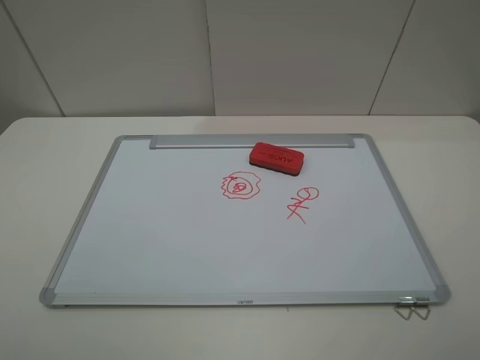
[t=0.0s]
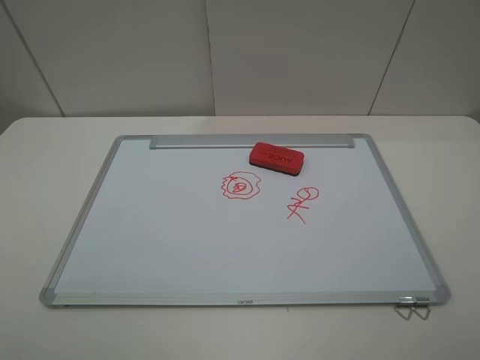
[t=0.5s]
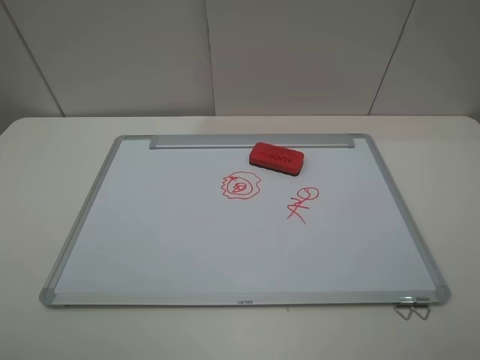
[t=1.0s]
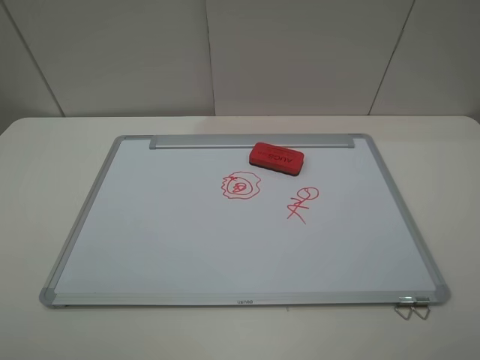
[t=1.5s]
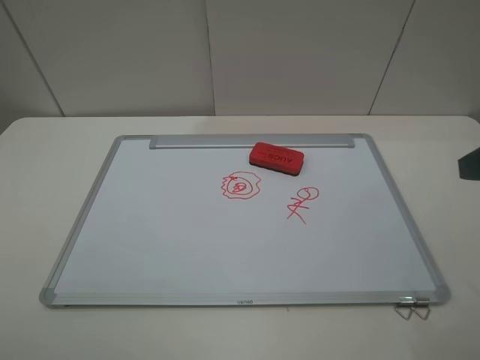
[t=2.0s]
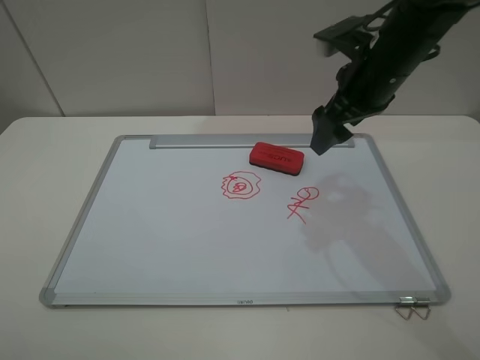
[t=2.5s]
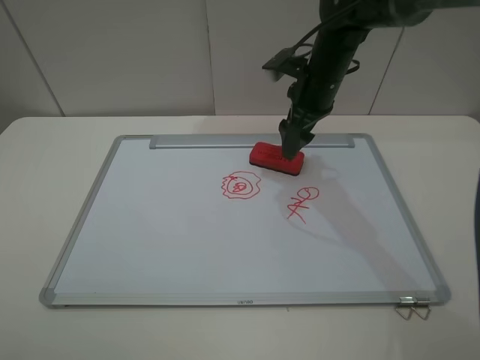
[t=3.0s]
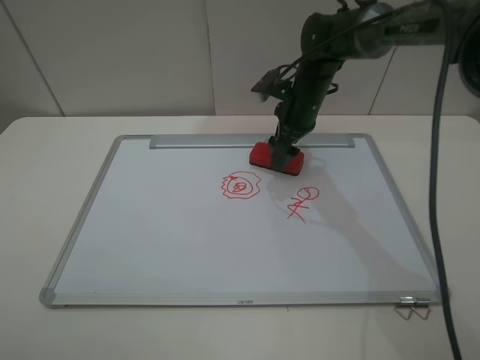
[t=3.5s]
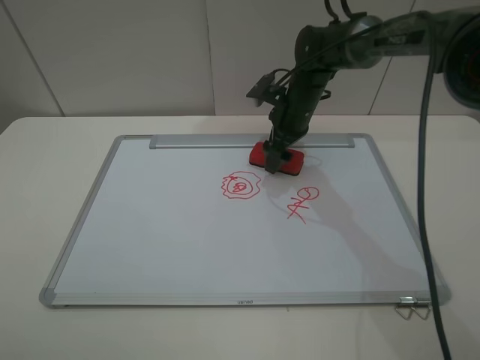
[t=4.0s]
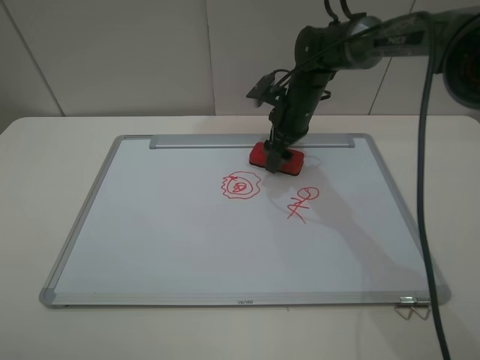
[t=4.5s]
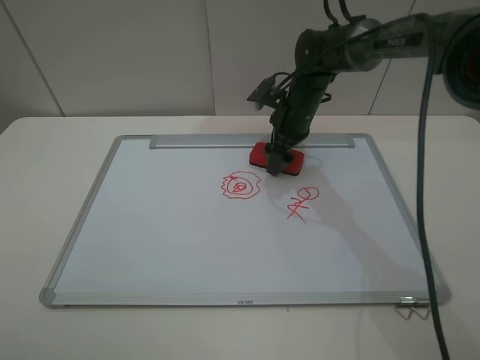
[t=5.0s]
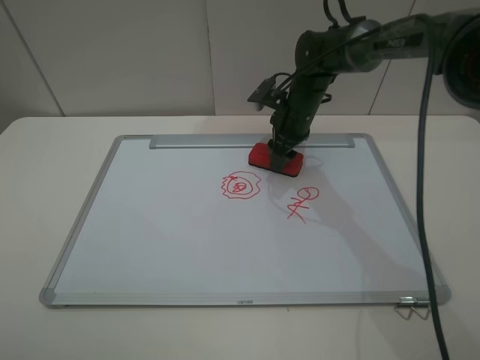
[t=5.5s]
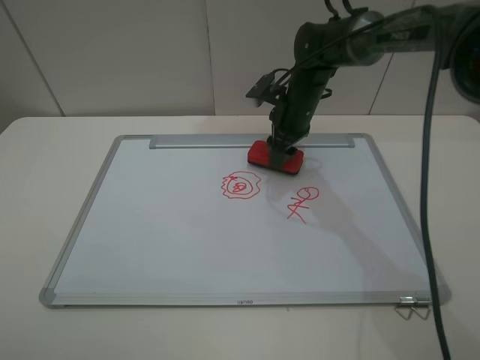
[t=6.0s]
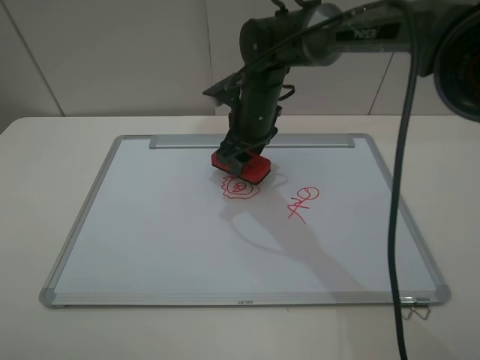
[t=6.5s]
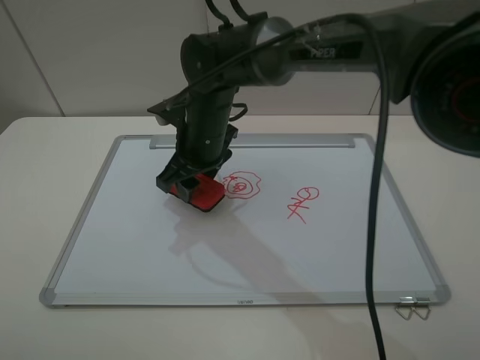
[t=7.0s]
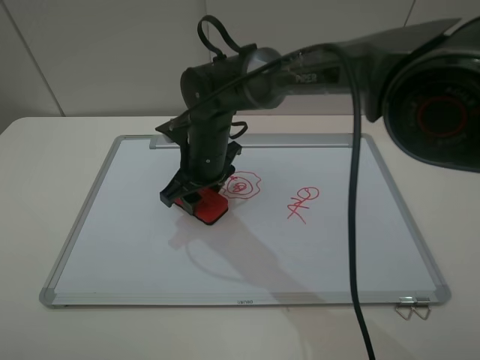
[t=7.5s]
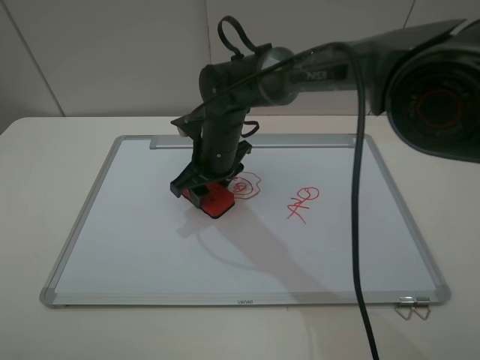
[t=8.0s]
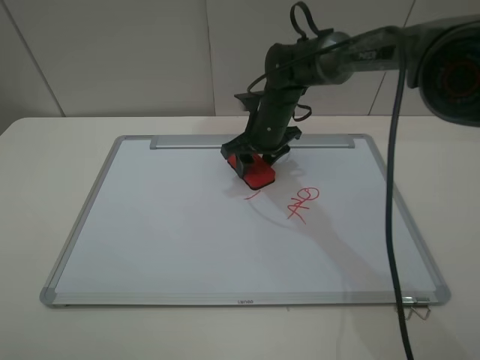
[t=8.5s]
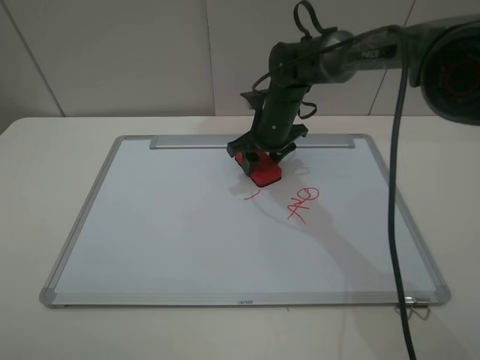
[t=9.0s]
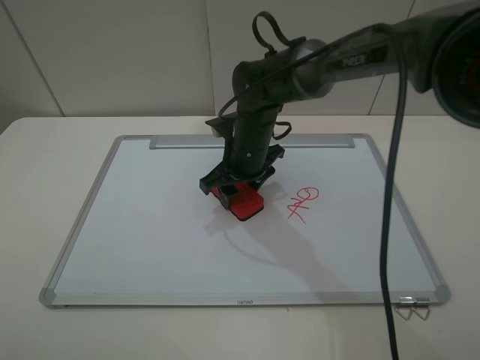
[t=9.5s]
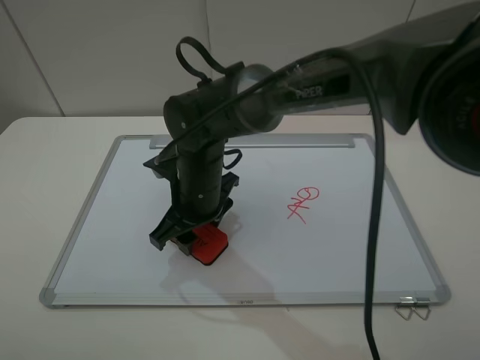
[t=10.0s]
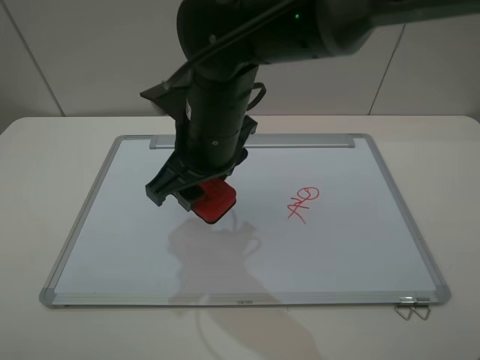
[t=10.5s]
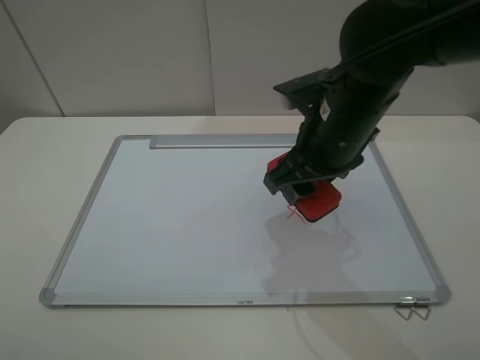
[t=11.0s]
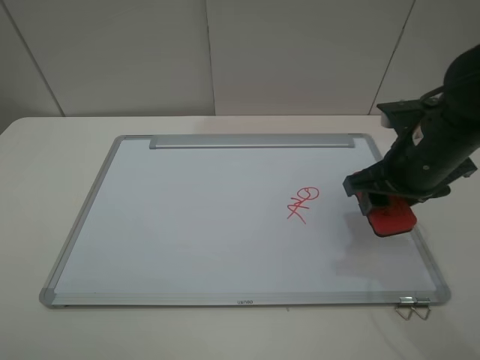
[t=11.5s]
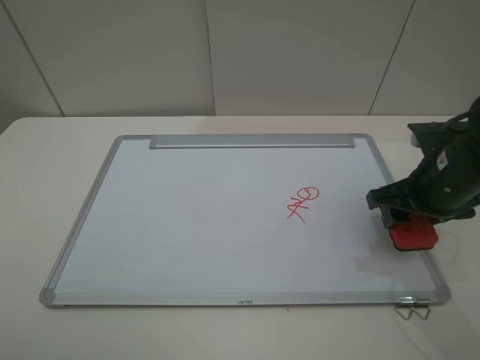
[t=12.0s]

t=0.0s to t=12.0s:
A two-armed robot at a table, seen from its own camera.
Step, t=0.0s to t=5.0s: Grasp the eraser with the right gripper.
Step, t=5.5s to t=10.0s: Grasp the eraser and wipe the blackboard with the right gripper.
t=2.0s to t=4.0s: The right gripper moves forward, to the left and downward, roughly 40 cm.
t=4.0s to t=6.0s: The right gripper closes up.
t=6.0s to t=8.0s: The right gripper shifts roughly 15 cm to the left and backward.
t=8.0s to t=10.0s: The right gripper shifts roughly 5 cm backward.
t=10.0s to t=12.0s: The right gripper heads to the right, covering about 30 cm.

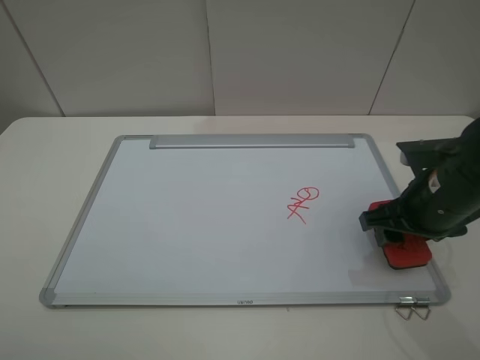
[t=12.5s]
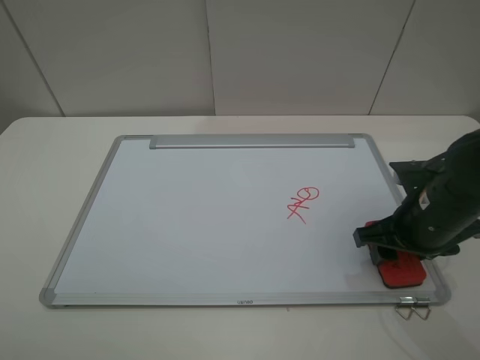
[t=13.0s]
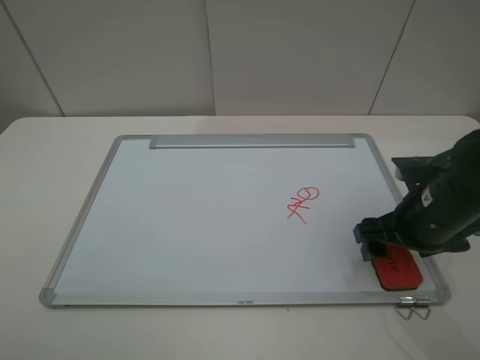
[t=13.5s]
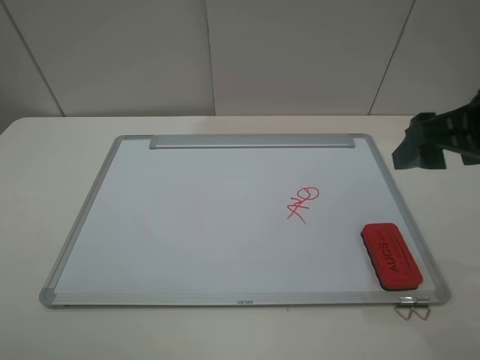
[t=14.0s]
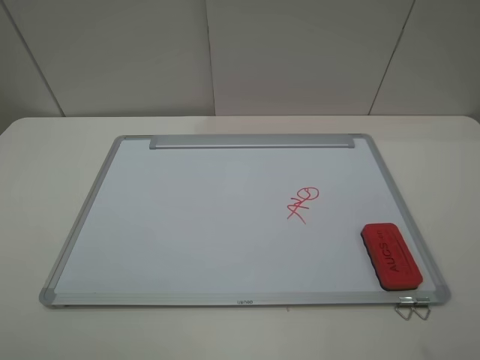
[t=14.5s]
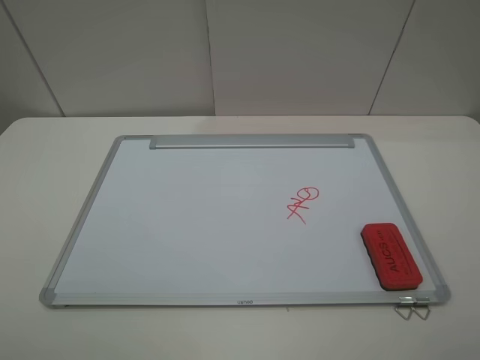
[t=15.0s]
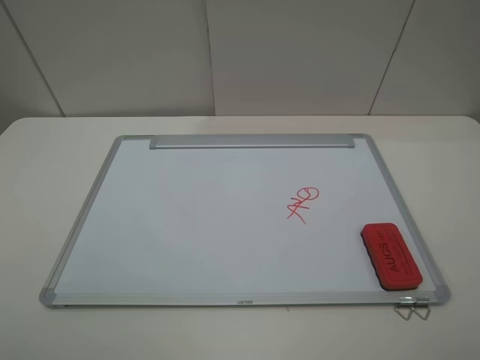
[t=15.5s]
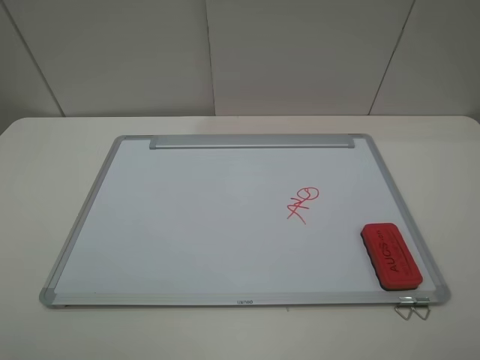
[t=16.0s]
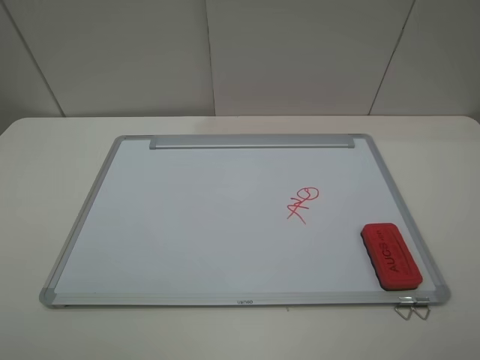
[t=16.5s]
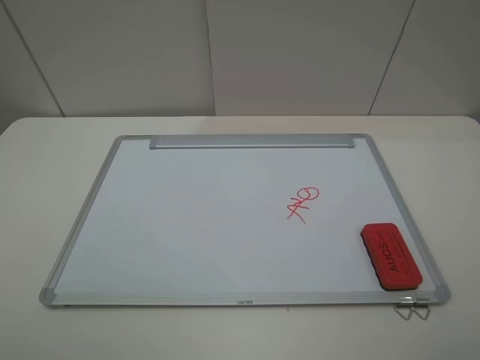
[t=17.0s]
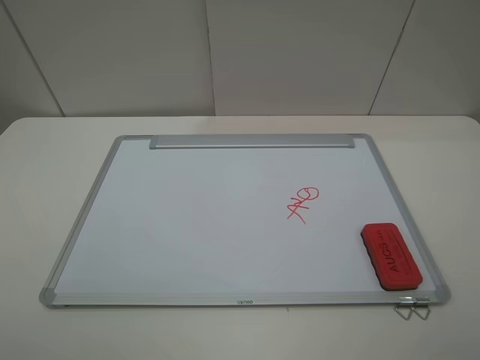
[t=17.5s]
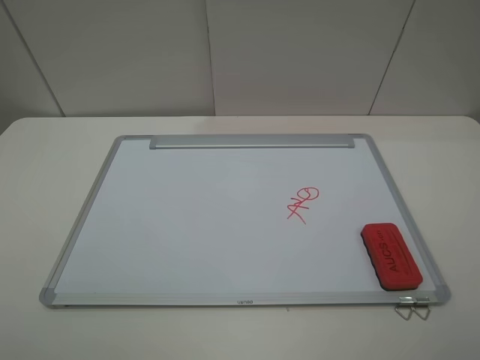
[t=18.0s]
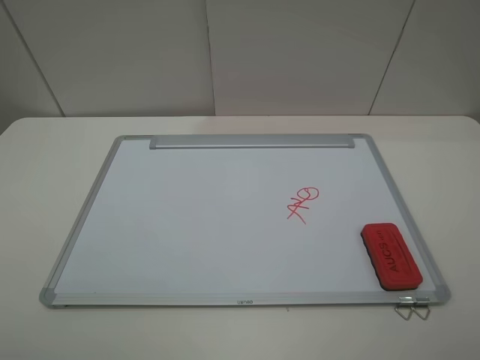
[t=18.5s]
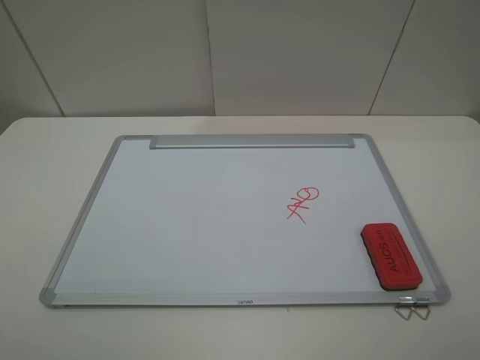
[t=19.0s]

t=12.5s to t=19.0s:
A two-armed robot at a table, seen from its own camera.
t=12.5s to t=14.5s: The right gripper goes about 25 cm upward and backward, and opens up.

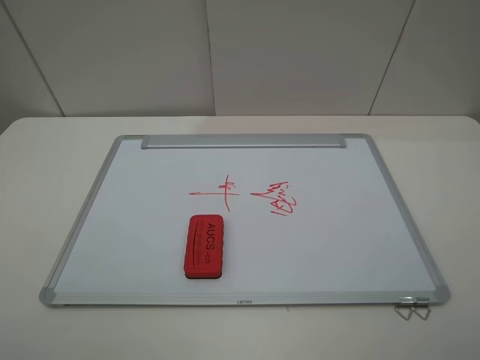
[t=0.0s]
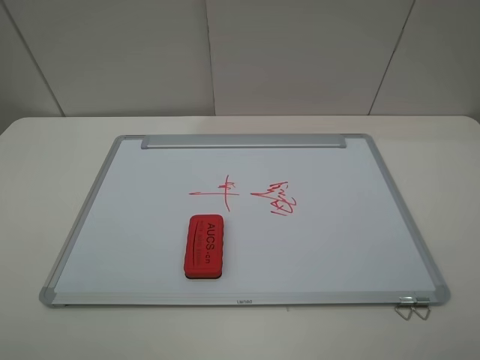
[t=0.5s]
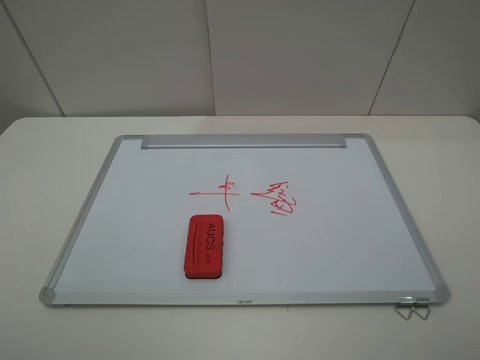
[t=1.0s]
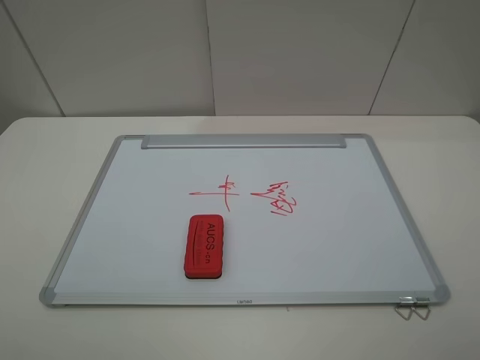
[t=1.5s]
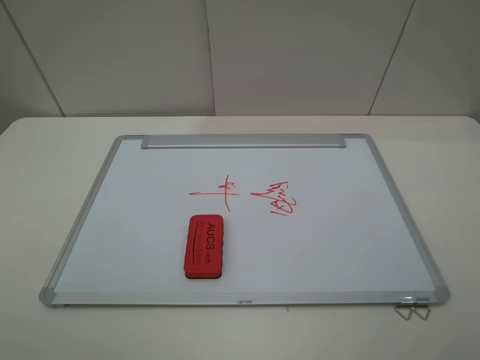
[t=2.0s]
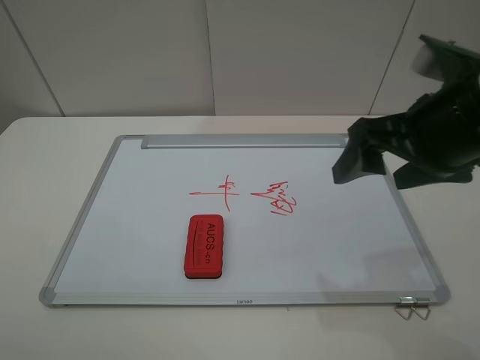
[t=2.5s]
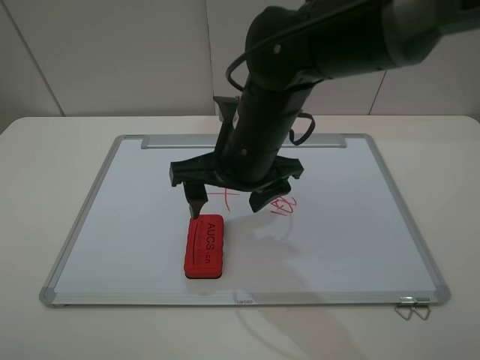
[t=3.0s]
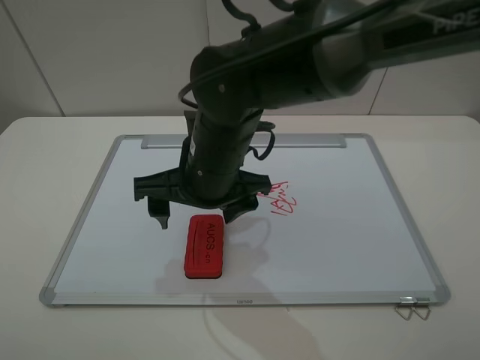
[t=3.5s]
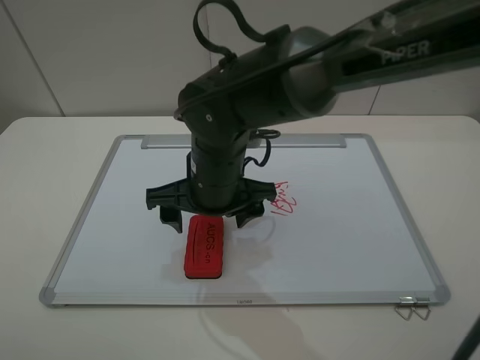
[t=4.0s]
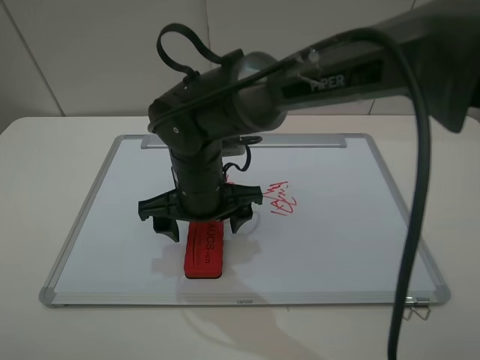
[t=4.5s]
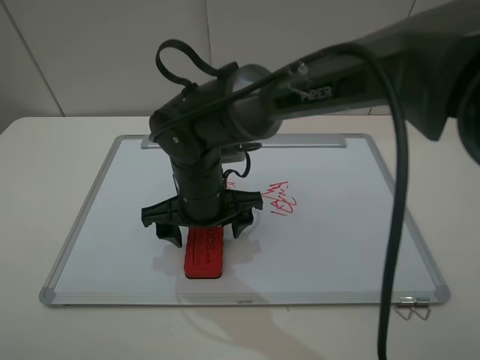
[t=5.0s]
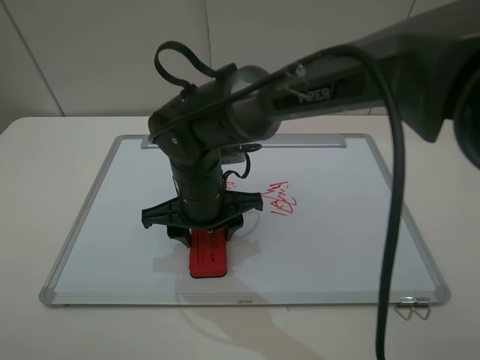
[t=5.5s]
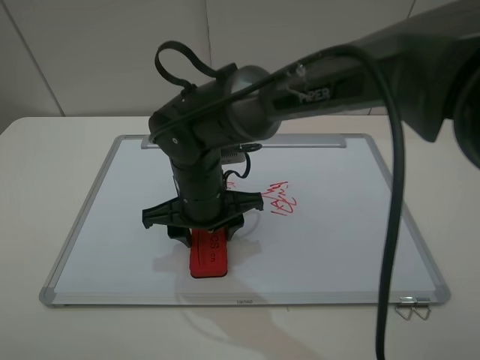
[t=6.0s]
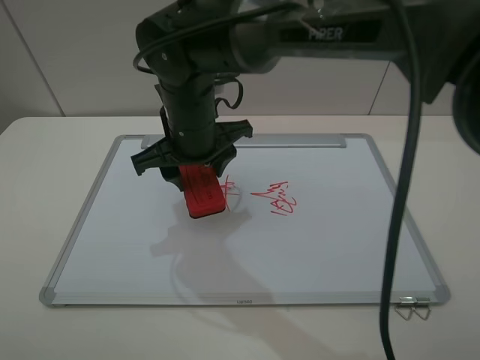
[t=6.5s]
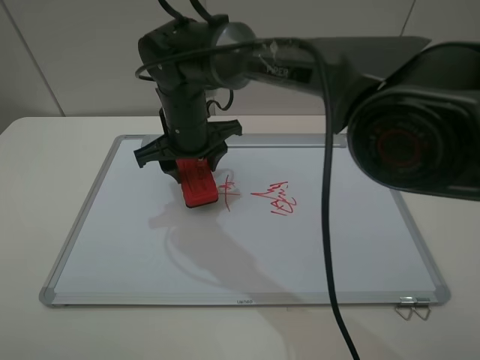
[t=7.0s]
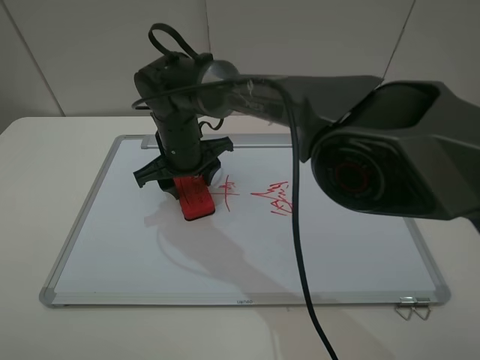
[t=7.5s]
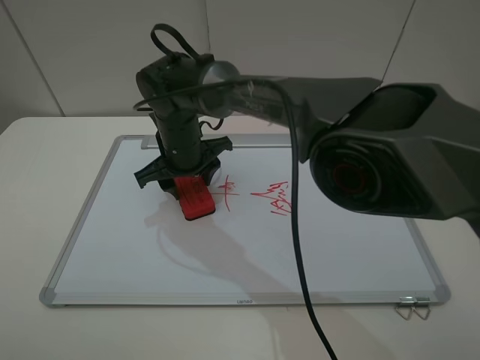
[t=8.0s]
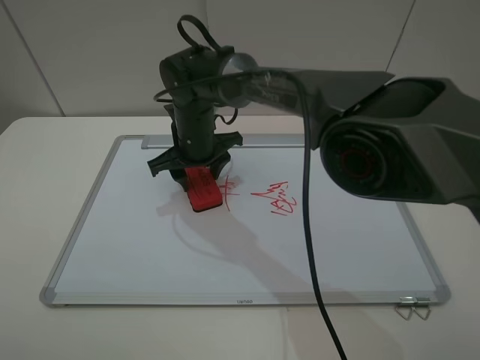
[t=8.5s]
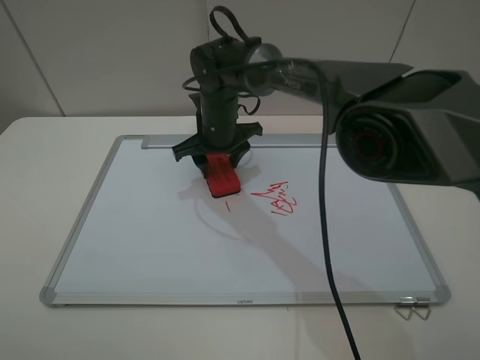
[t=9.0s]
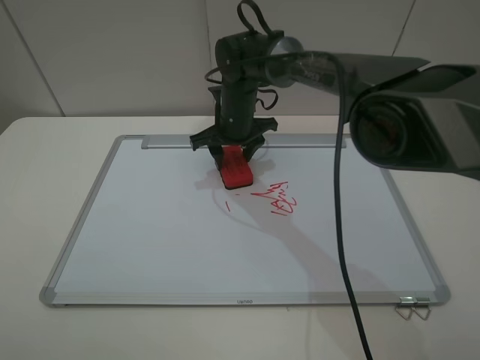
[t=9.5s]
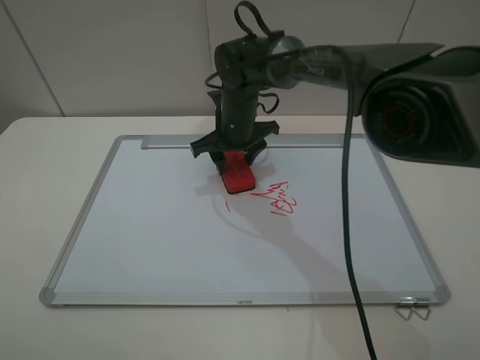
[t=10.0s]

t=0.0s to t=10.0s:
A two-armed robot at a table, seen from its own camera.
Step, t=0.0s to t=5.5s: Grasp the eraser with the right gripper.
t=2.0s to t=4.0s: The right gripper heads to the left, forward and downward, covering approximately 40 cm.
t=4.0s to t=6.0s: The right gripper closes up.
t=6.0s to t=8.0s: The right gripper heads forward, covering about 10 cm.
t=8.0s to t=10.0s: The right gripper goes about 10 cm to the right and forward.
